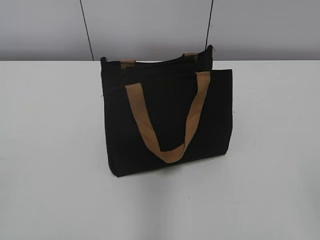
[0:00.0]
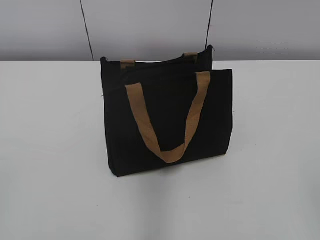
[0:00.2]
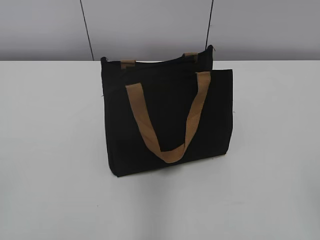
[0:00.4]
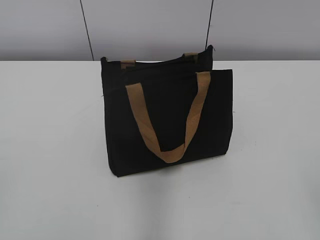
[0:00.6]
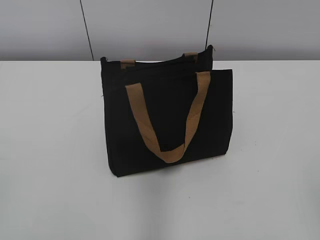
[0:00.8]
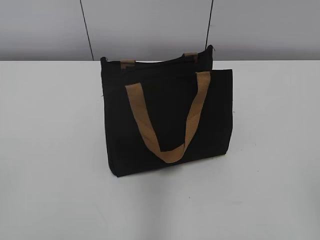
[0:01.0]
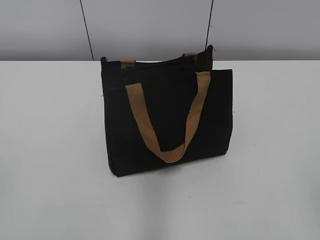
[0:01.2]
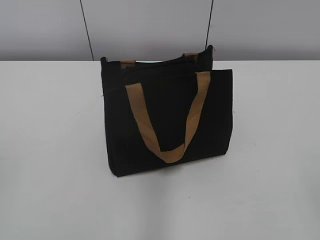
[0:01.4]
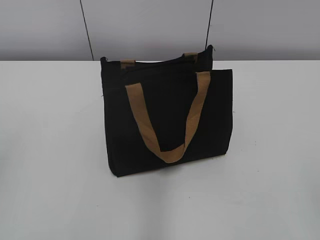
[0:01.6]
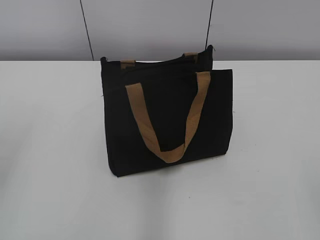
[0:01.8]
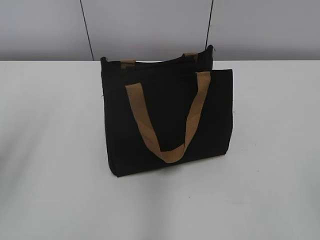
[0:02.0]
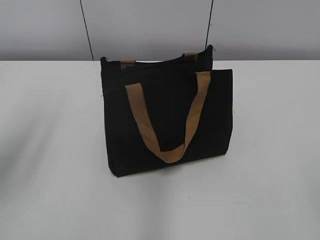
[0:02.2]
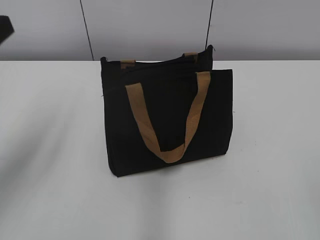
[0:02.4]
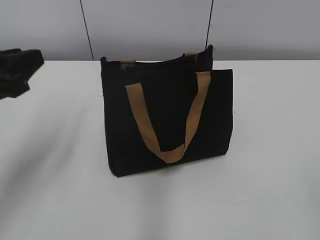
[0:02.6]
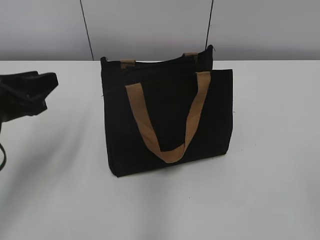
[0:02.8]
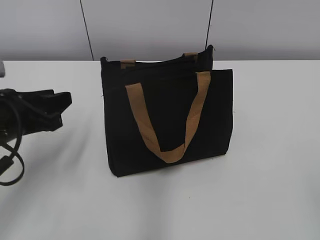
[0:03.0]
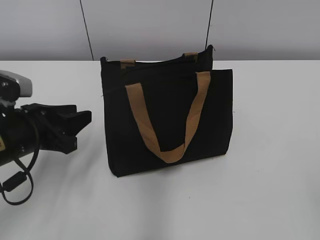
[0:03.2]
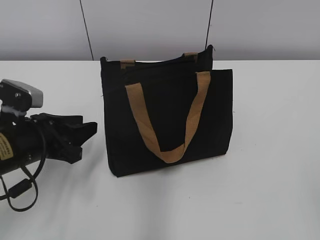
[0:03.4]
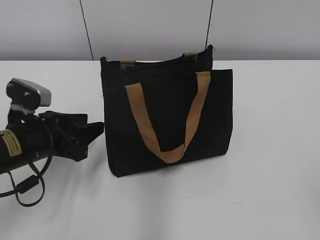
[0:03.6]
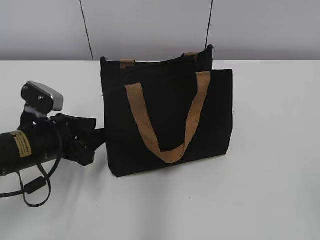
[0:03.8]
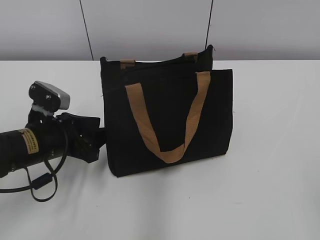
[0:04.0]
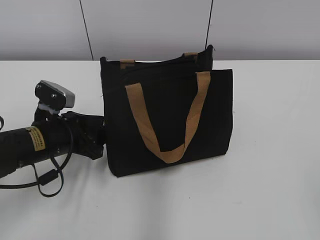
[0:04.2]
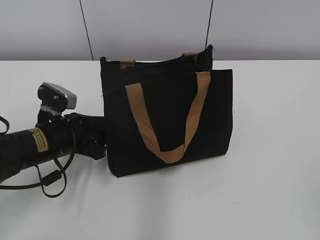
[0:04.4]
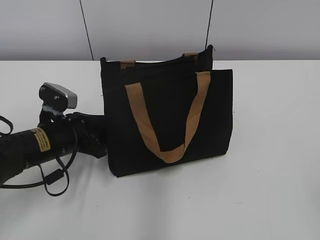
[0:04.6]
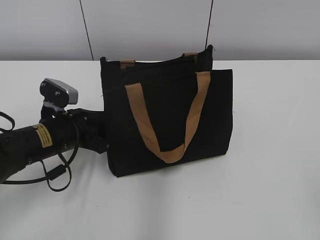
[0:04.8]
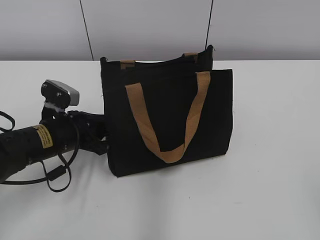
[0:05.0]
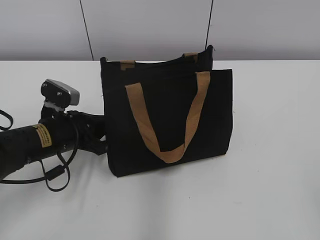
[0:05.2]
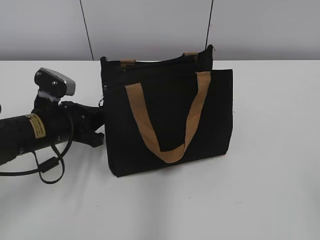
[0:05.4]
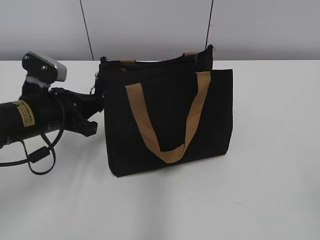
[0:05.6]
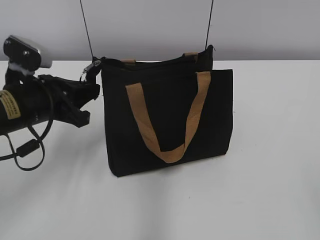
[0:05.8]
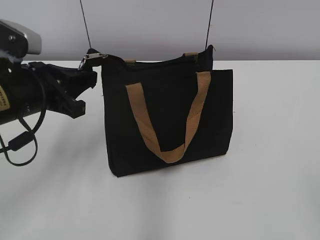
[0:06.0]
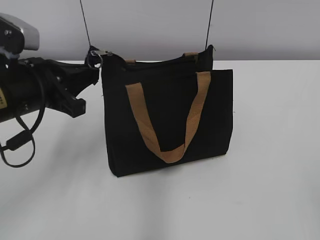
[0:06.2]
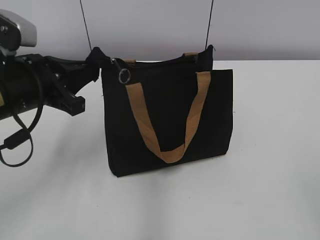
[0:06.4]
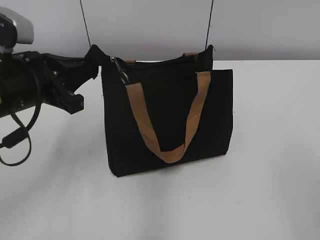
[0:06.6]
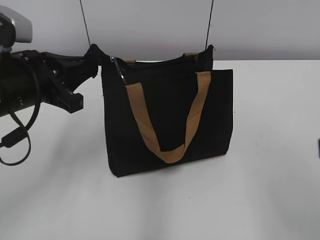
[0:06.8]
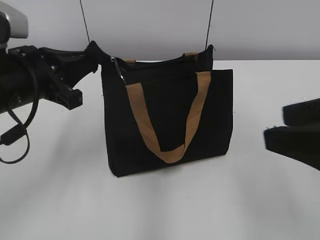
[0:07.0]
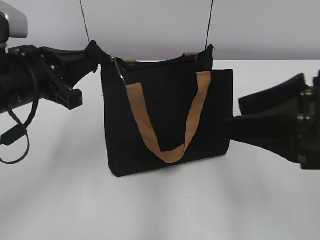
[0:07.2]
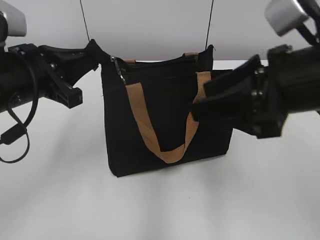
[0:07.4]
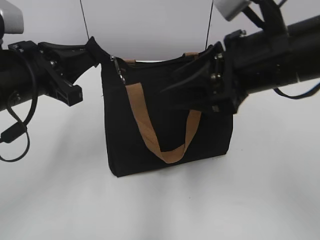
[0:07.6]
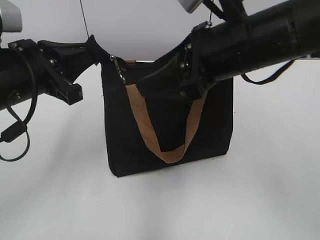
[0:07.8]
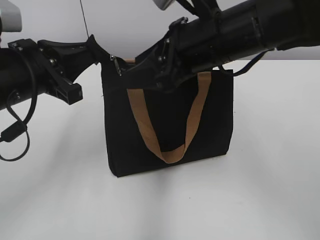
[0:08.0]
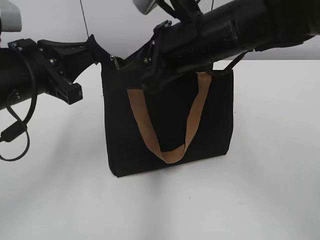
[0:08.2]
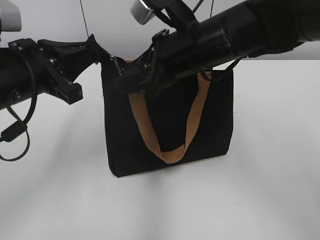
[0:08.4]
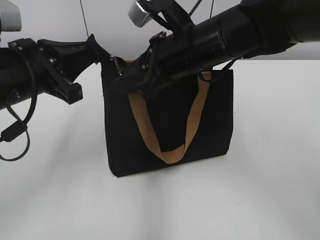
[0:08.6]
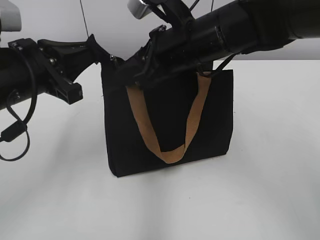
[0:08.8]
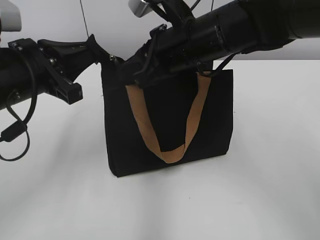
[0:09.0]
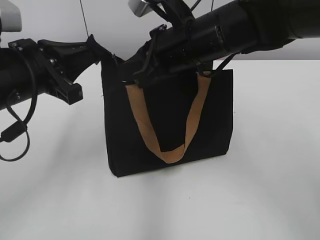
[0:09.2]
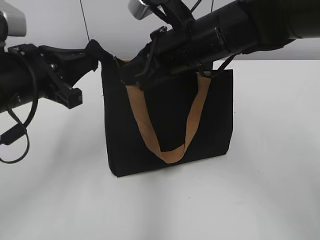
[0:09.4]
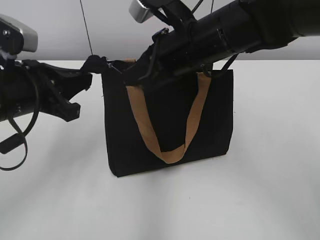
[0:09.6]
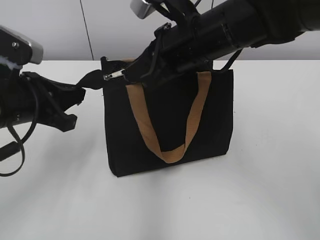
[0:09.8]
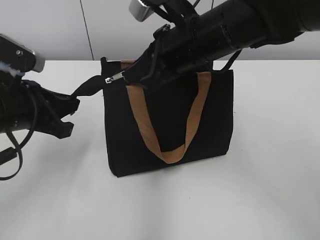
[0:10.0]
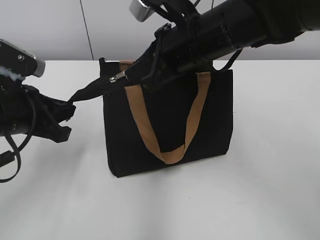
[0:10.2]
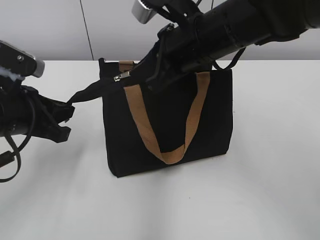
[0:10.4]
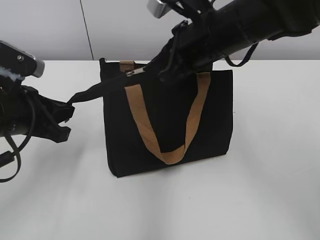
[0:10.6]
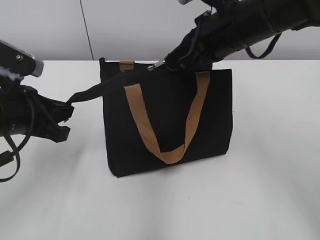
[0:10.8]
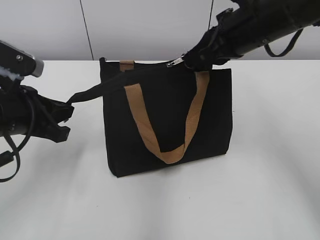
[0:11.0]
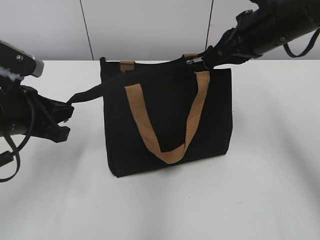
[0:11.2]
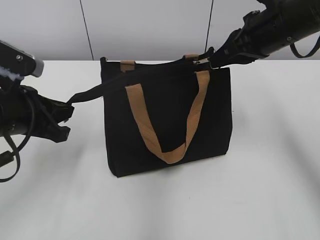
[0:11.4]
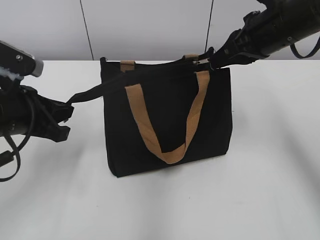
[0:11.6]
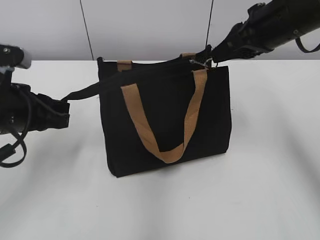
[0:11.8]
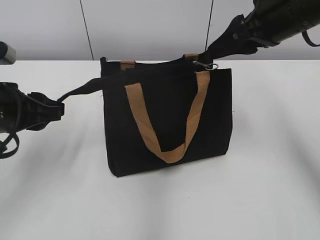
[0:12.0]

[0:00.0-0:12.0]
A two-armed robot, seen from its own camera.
Step, 0:00.0 to 0:11.8: Zip up the bag with your right hand.
0:01.6 to 0:03.0: The left gripper is displaced forward, downward and to the right by approximately 25 cm.
0:03.0 to 0:04.4: The left gripper travels downward by about 10 cm.
0:04.4 to 0:06.0: The left gripper heads upward, covering roughly 10 cm, and closes up.
0:06.0 to 0:07.6: The right gripper heads forward and to the left, covering approximately 30 cm.
0:07.6 to 0:09.0: The right gripper goes about 15 cm forward and to the left, and closes its fingers.
0:09.0 to 0:10.4: The left gripper ends up approximately 5 cm from where it was. Meanwhile the right gripper closes up.
0:10.4 to 0:12.0: The left gripper opens up. Meanwhile the right gripper heads to the right, covering about 10 cm, and opens up.

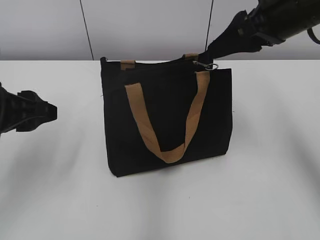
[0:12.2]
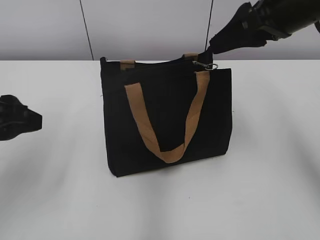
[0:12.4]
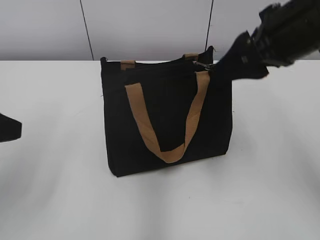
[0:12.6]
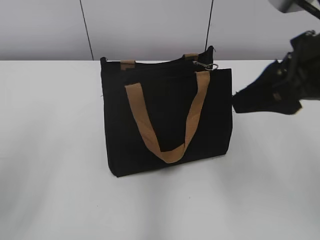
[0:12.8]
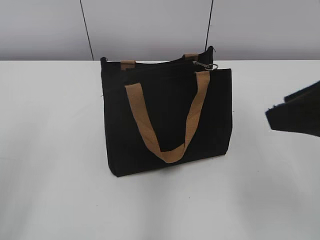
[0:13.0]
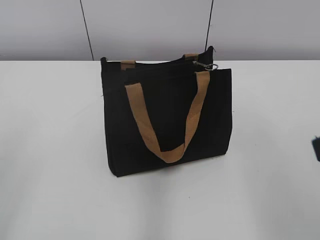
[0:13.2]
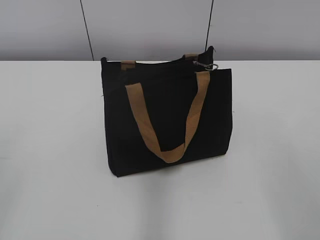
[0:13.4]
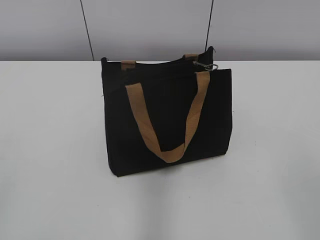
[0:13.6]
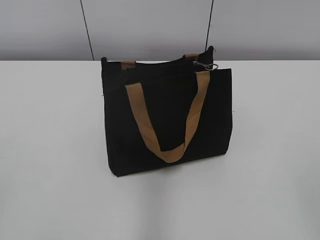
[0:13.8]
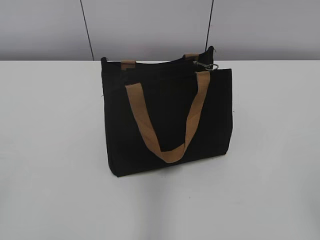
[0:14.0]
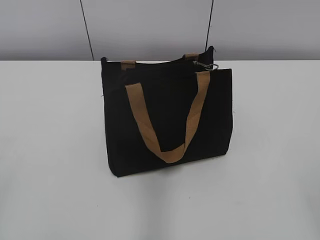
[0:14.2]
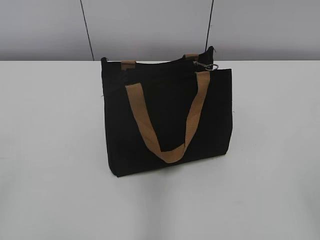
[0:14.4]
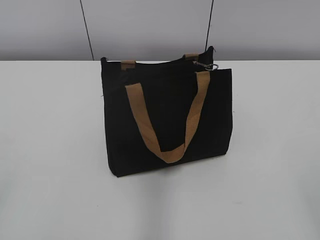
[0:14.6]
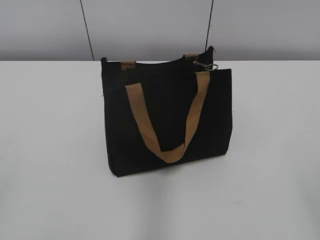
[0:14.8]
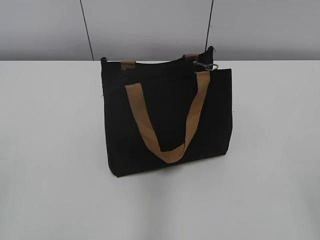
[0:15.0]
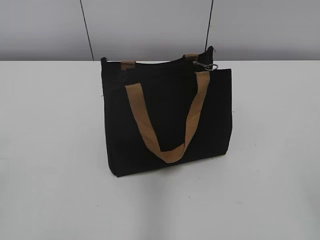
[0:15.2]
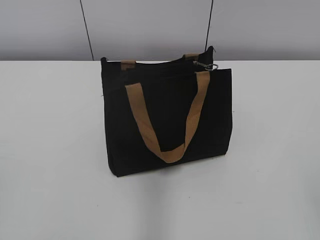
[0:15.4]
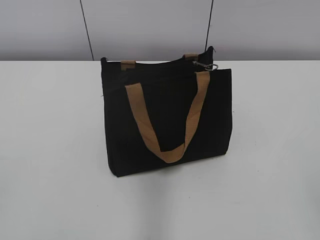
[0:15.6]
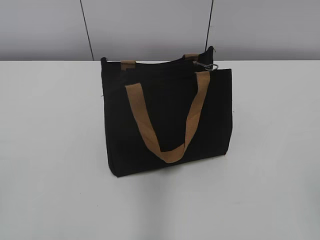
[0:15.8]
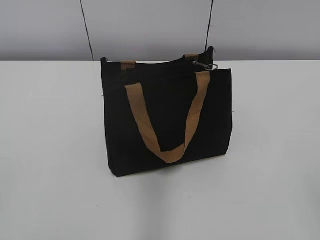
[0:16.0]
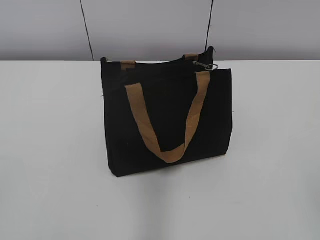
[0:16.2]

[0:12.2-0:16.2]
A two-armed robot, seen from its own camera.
0:12.2 to 0:13.6: The right gripper travels backward by some 30 cm; the left gripper shifts about 25 cm backward and to the left.

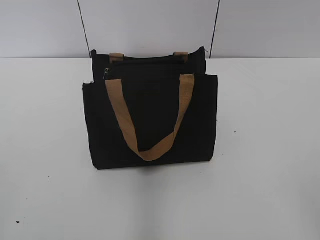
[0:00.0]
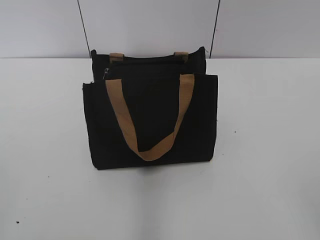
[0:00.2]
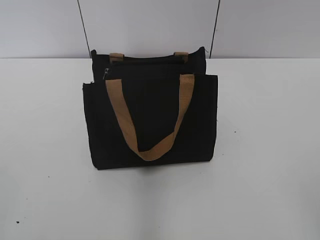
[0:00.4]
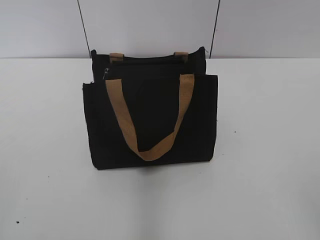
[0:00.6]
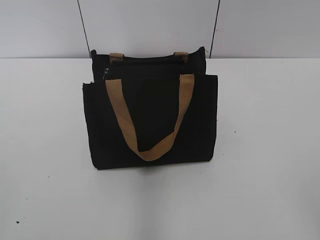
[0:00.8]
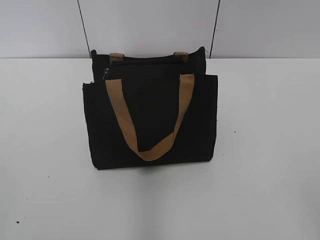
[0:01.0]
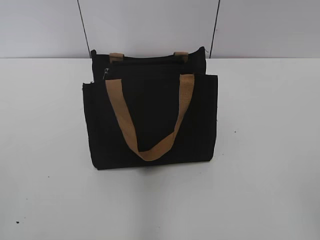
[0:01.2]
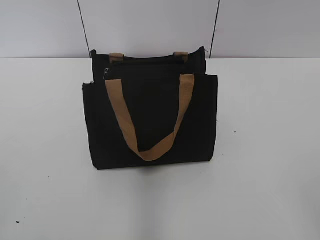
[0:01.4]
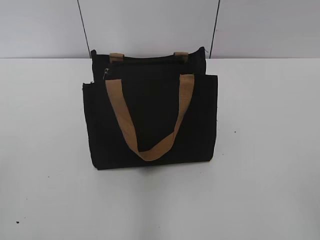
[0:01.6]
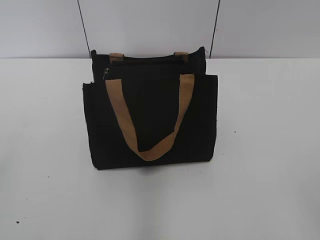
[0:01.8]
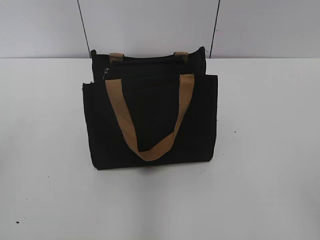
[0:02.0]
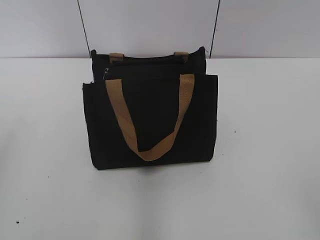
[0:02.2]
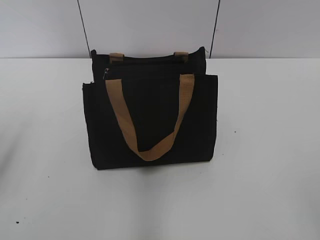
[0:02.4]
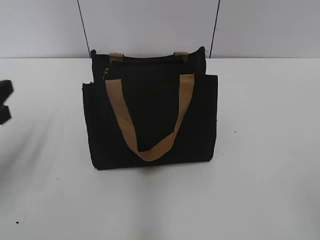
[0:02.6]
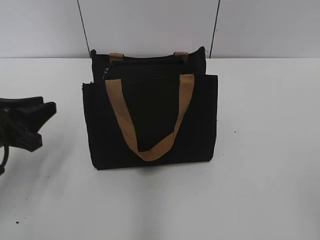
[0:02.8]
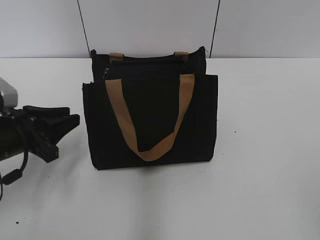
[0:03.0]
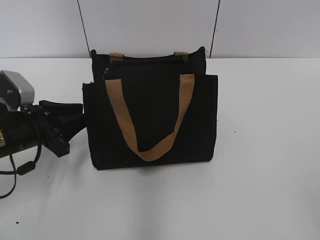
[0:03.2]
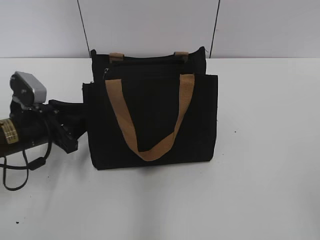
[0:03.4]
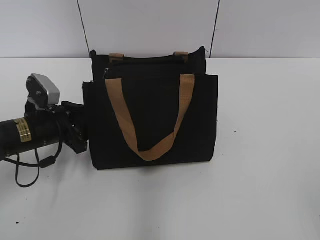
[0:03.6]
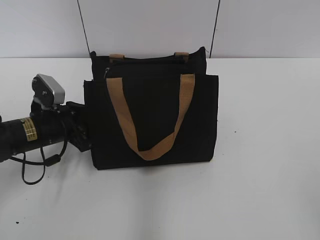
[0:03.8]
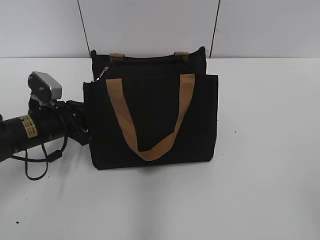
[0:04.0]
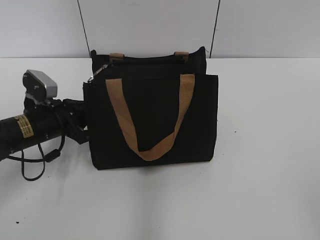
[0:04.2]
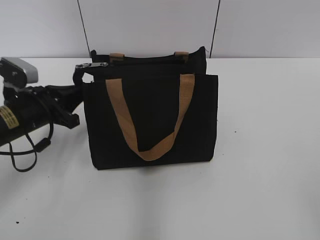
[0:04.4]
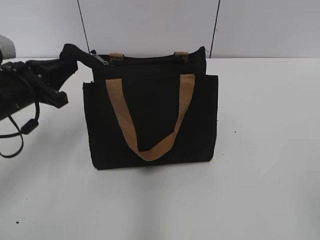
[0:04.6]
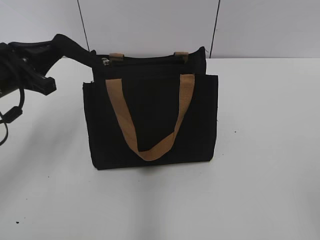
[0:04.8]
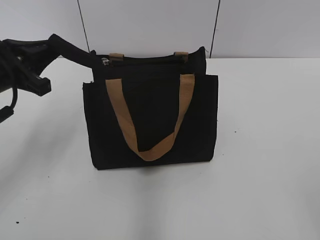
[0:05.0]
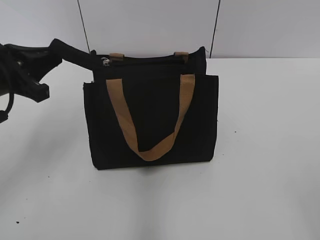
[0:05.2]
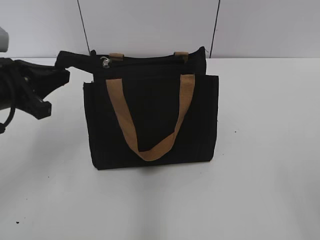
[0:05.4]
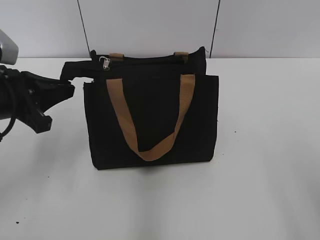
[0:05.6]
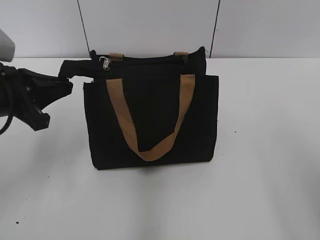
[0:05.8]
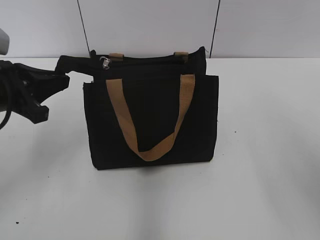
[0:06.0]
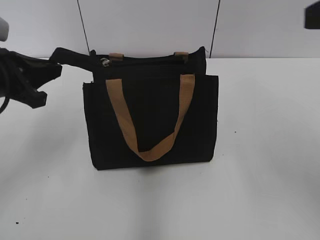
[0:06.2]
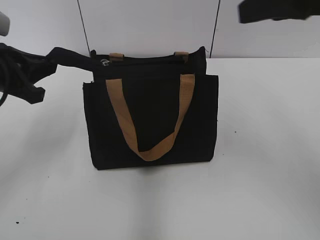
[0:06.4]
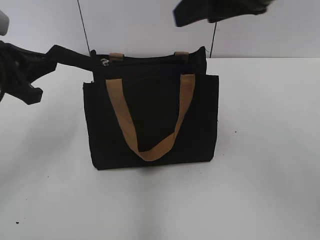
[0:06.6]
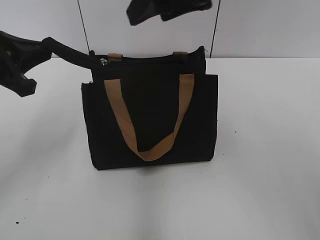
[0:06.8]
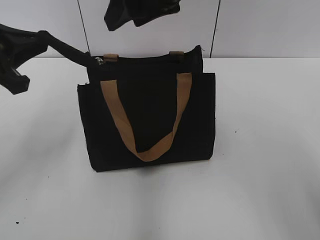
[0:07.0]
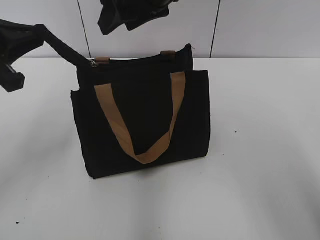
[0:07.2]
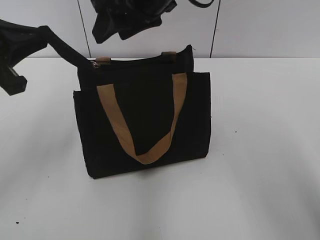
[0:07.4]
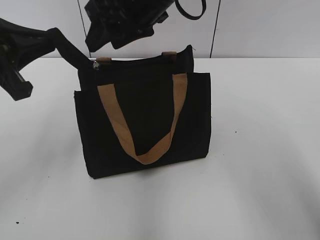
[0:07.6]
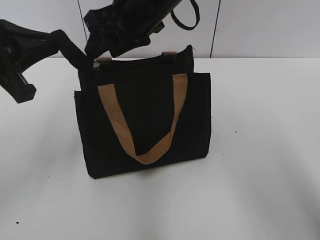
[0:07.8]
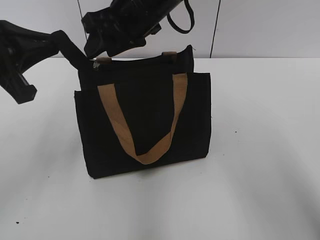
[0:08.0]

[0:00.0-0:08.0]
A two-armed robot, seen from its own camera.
0:01.6 to 0:03.2: The left gripper travels forward and downward by roughly 30 cm.
0:03.2 to 0:04.8: The left gripper shifts roughly 10 cm upward, and closes its fingers.
0:04.8 to 0:06.4: The right gripper shifts about 25 cm forward and upward.
0:06.4 to 0:08.0: The left gripper changes place by roughly 5 cm; the right gripper goes approximately 25 cm to the left, forward and downward.
